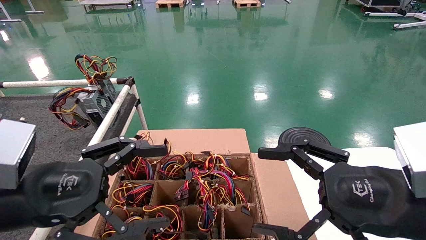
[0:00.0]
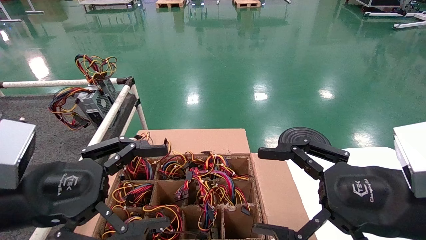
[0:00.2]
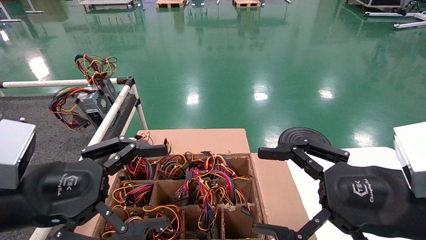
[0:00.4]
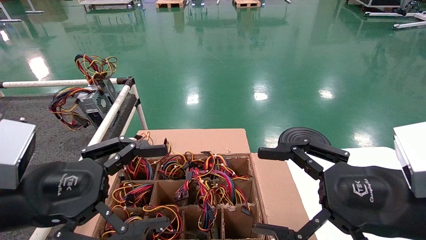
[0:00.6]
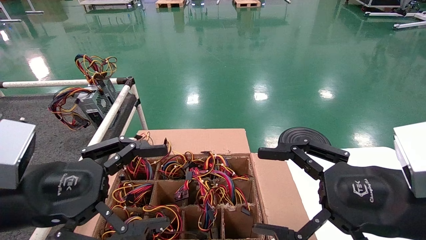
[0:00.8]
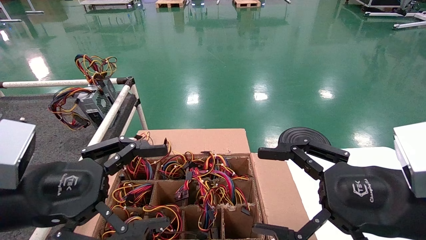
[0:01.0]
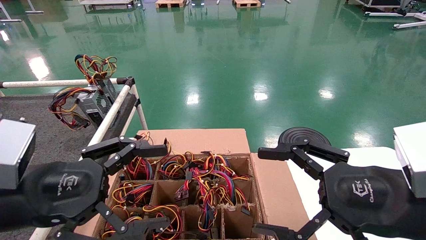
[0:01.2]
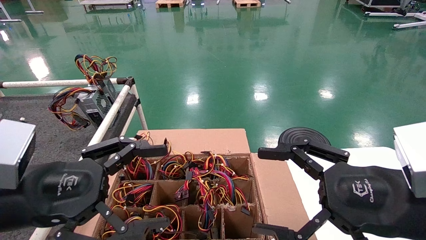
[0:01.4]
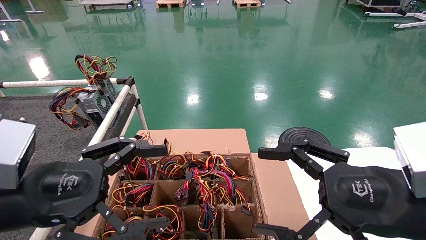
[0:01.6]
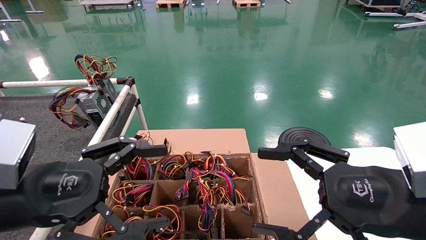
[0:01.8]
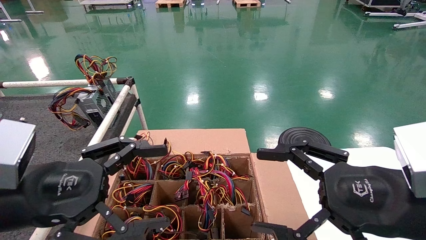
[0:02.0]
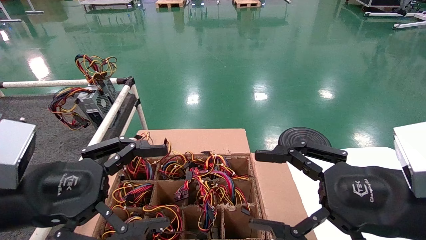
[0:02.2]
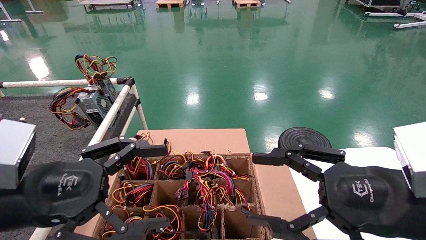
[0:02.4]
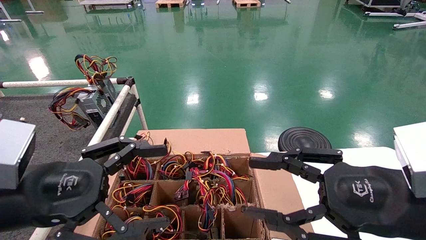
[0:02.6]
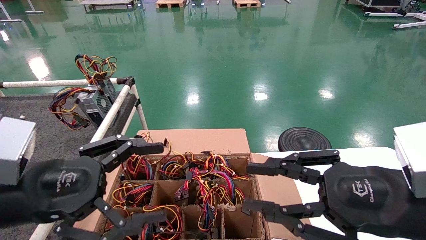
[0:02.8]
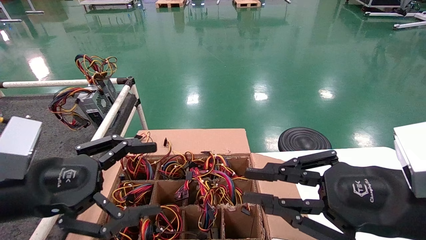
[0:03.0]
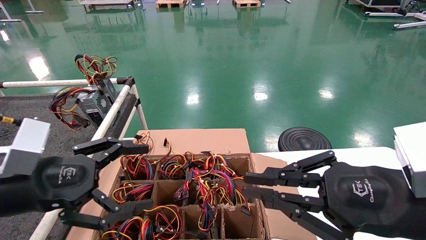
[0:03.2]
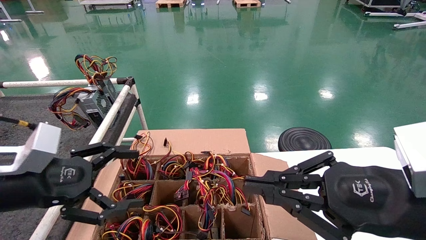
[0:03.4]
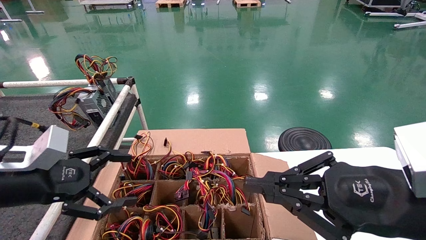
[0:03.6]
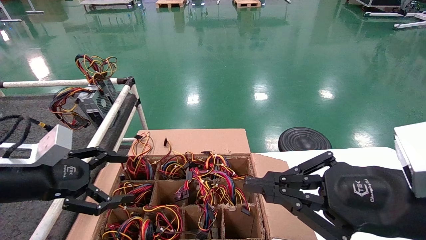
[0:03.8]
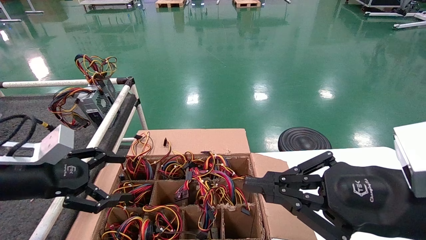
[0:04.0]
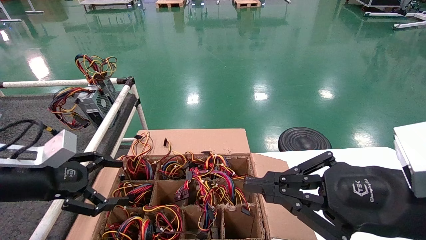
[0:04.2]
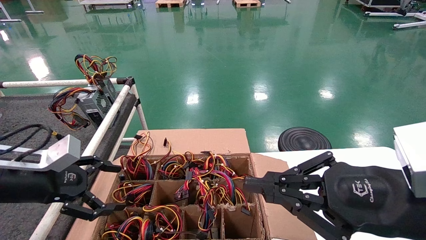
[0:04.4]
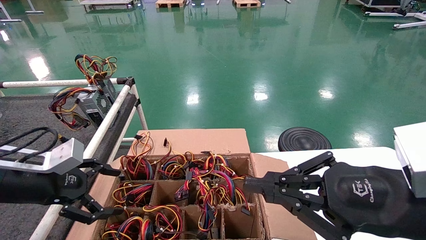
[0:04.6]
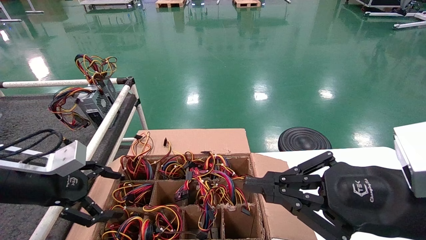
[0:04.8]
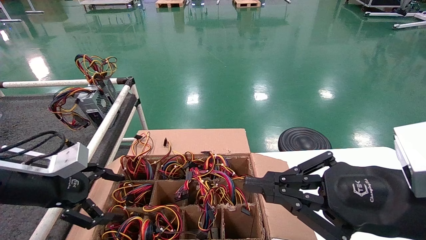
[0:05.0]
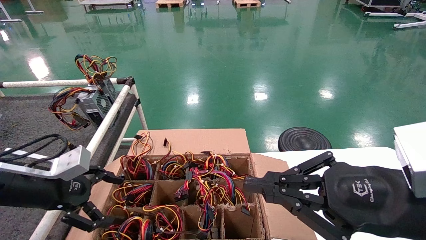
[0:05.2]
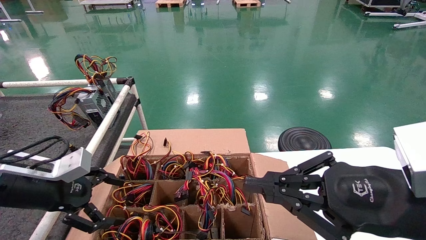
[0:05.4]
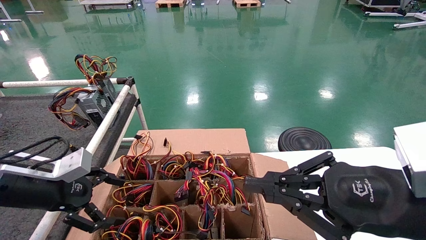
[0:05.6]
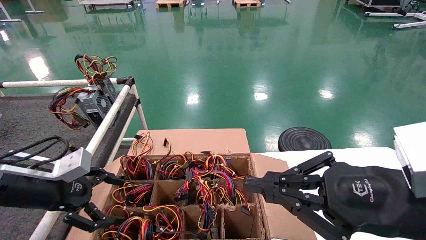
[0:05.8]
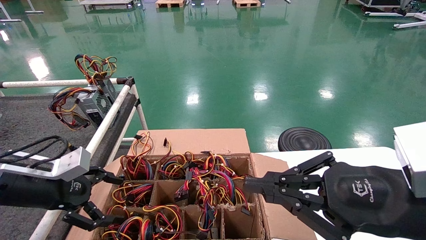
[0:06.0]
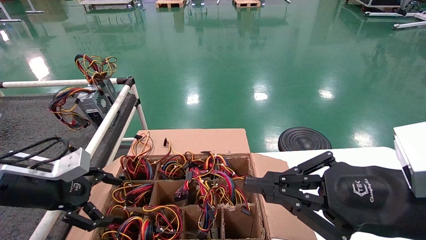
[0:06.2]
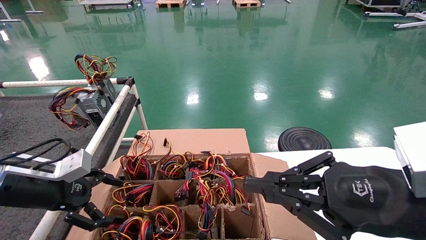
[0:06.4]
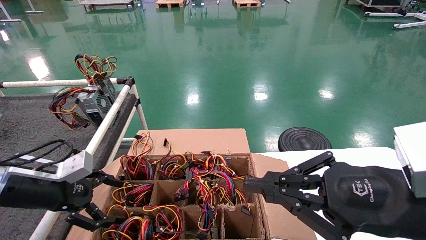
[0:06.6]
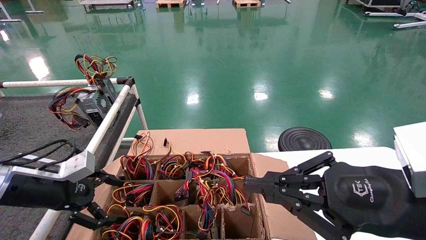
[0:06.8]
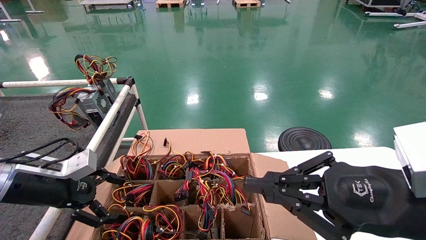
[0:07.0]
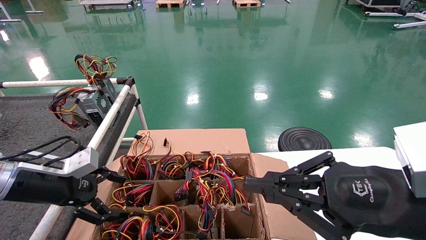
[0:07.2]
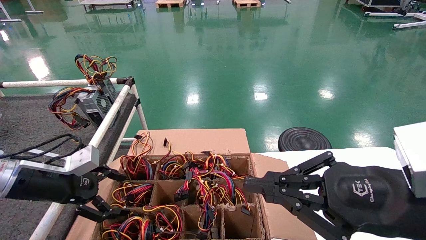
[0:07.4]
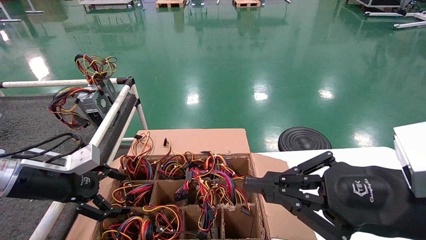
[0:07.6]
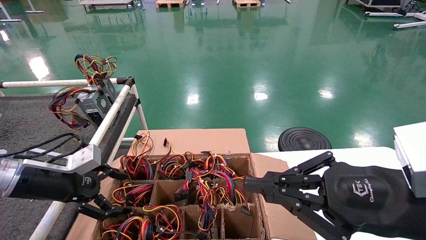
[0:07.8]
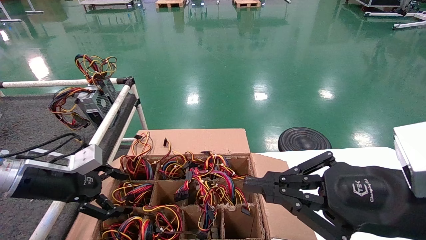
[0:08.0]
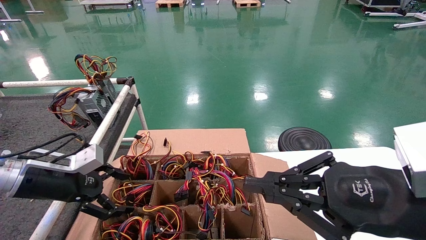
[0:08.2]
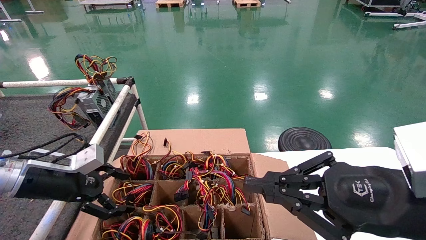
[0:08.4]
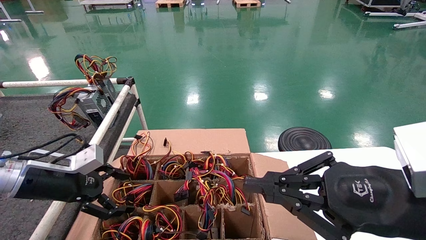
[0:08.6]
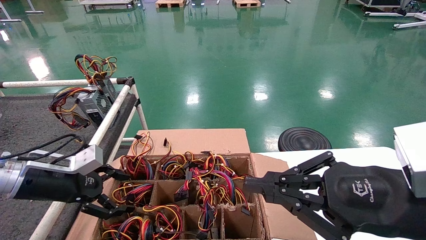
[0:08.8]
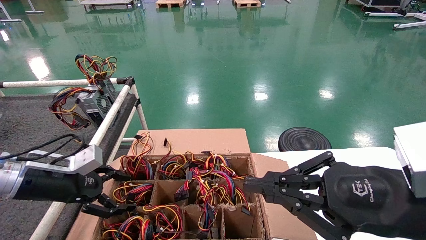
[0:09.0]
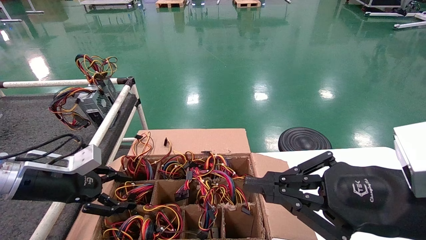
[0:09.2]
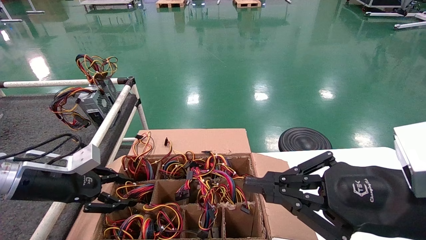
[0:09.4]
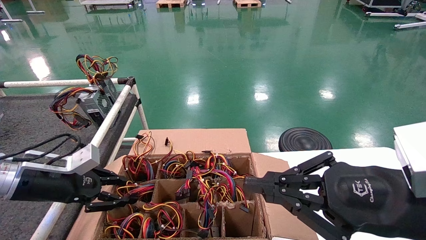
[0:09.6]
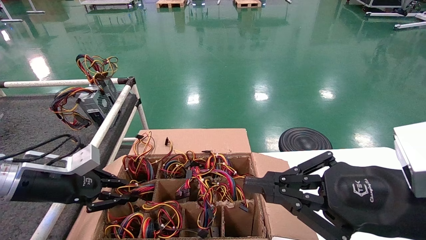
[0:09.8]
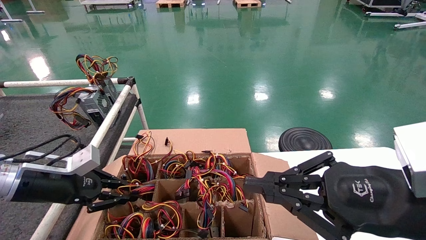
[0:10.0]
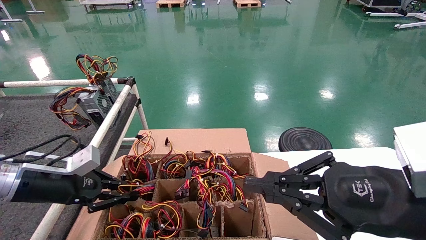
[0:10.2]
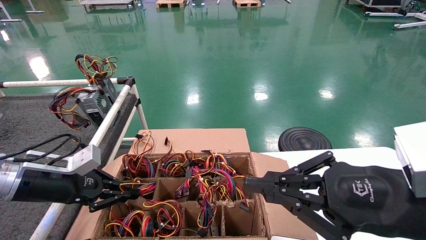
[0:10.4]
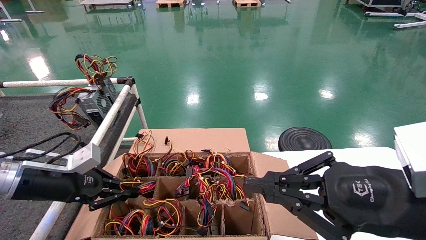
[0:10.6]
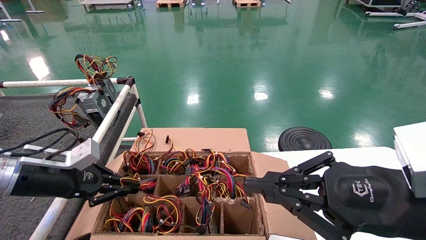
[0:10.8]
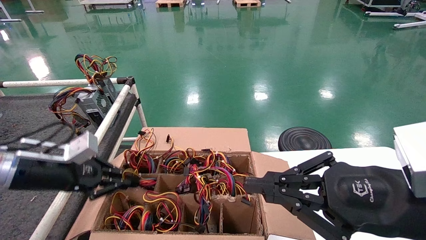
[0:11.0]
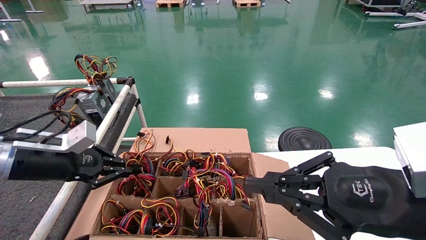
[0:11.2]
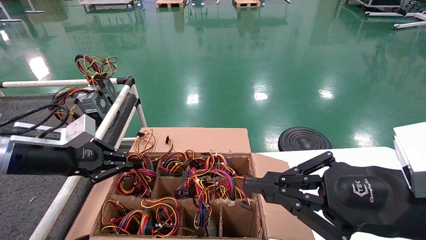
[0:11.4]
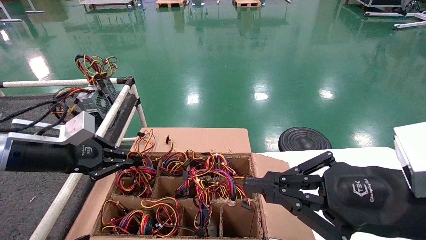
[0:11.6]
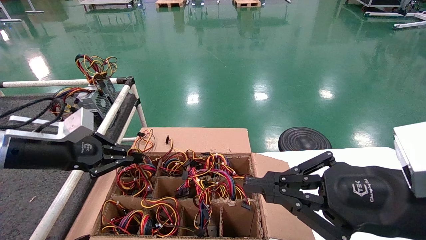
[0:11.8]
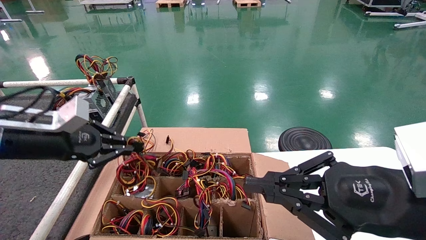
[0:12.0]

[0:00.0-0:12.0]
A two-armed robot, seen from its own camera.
Step, 0:03.0 to 0:09.8: Grab and lift the power supply from the large box.
0:00.0 to 0:01.6: Both grippers stay about where they are.
0:01.6 to 0:03.0: The right gripper closes its fingers.
0:03.0 to 0:04.4: The right gripper closes its fingers; the left gripper is displaced forward and to the left by roughly 10 cm.
0:04.4 to 0:07.6: There are only small adjustments of the grippers.
0:07.6 to 0:09.0: Neither gripper changes place.
0:09.0 to 0:10.4: The left gripper closes up.
0:10.4 to 0:12.0: The left gripper heads upward, covering approximately 10 cm.

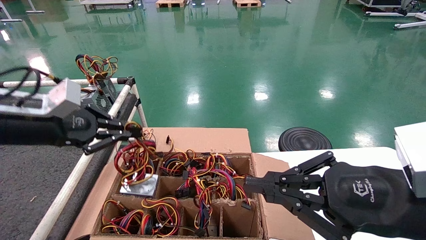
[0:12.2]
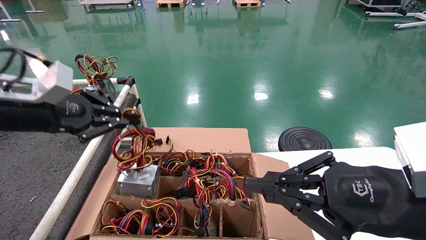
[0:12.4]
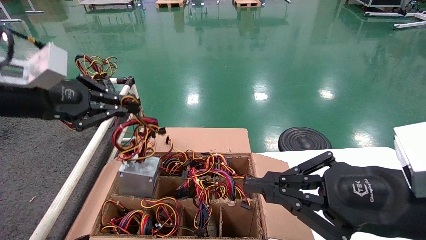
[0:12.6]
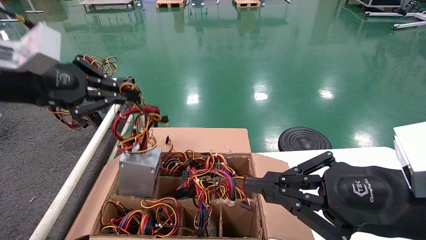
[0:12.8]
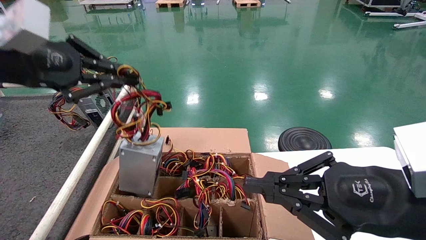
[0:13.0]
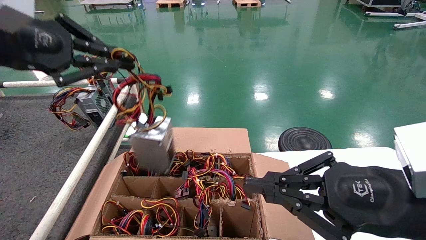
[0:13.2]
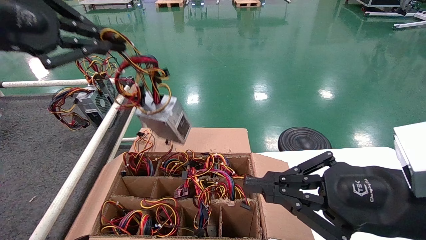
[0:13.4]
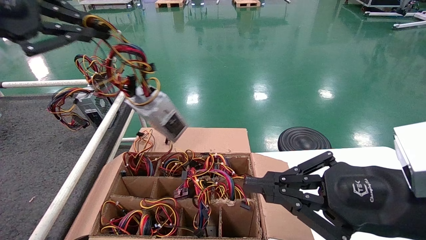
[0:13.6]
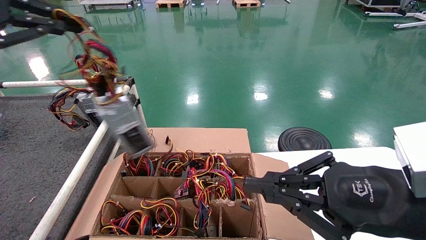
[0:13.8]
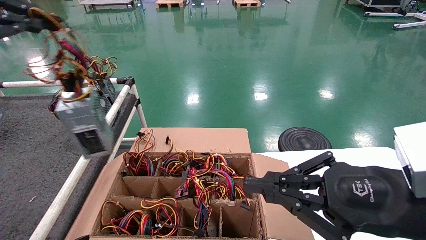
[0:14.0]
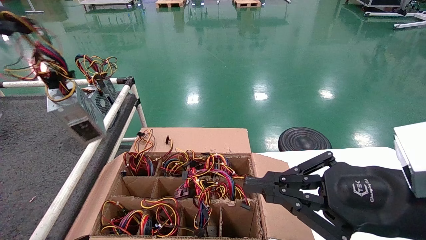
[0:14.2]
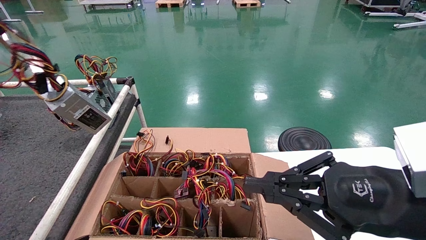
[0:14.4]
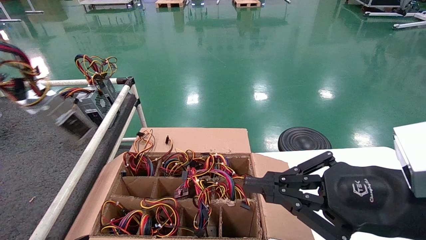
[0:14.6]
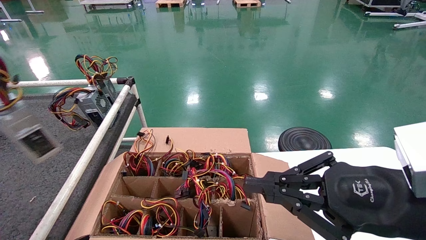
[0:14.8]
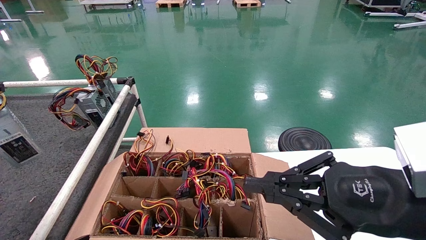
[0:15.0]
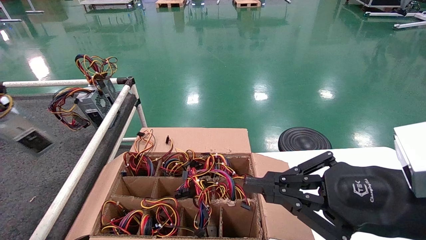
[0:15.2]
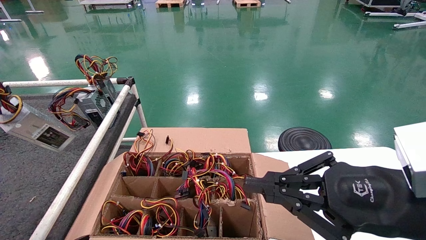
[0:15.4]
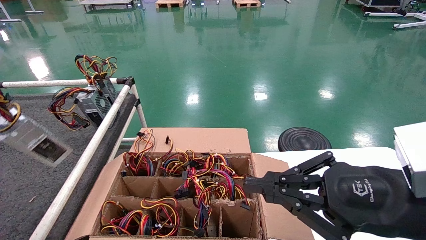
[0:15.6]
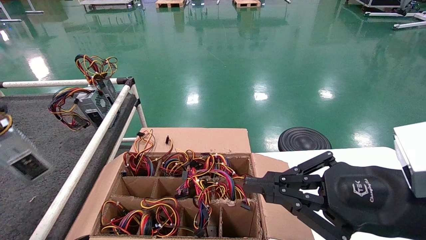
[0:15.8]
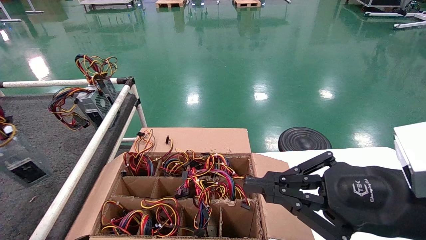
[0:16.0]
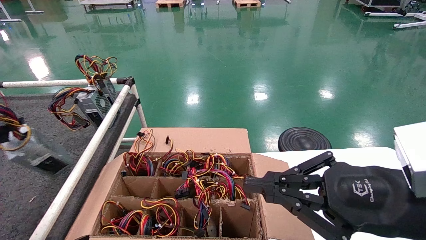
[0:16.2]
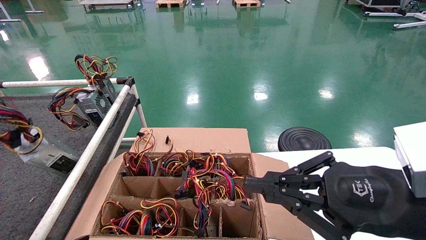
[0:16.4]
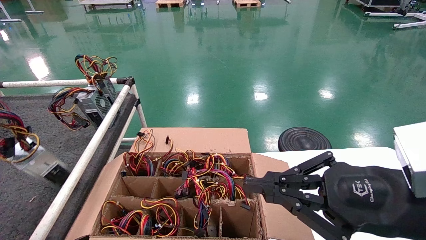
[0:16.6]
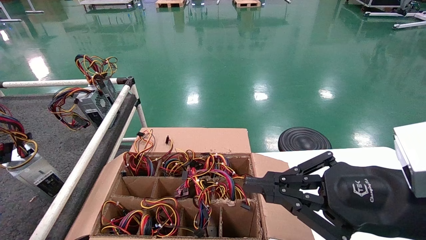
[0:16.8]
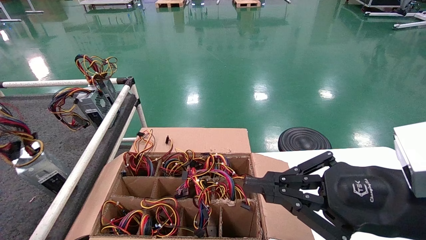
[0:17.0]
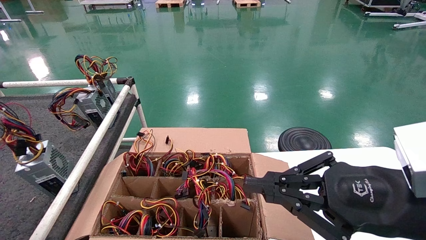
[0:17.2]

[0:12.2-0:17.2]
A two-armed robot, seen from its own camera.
0:12.2 to 0:13.8: The left gripper heads upward and backward, covering about 20 cm.
0:13.8 to 0:15.6: The left gripper is displaced to the left by approximately 15 cm.
0:15.6 to 0:17.2: The left gripper is displaced downward by roughly 5 cm.
